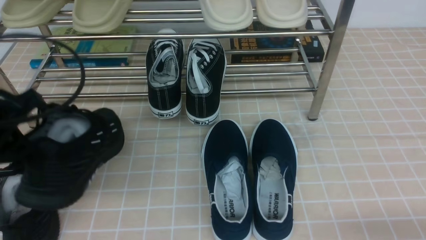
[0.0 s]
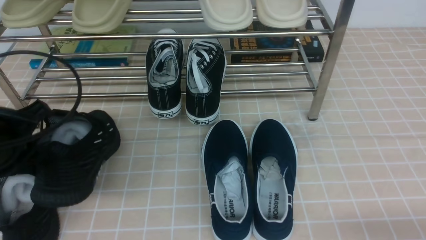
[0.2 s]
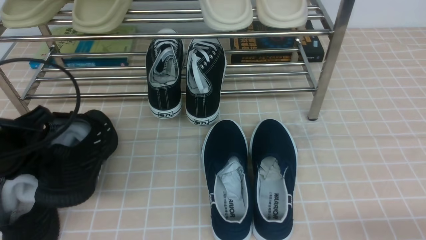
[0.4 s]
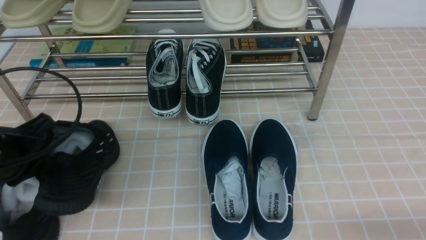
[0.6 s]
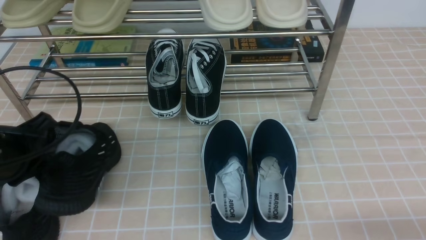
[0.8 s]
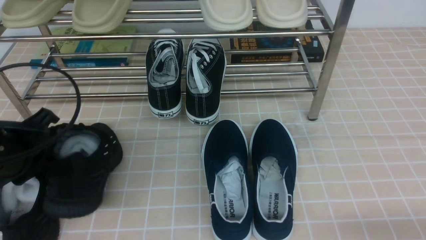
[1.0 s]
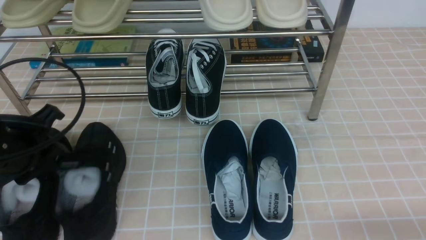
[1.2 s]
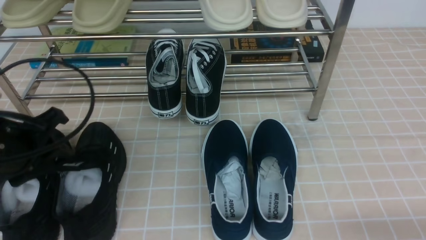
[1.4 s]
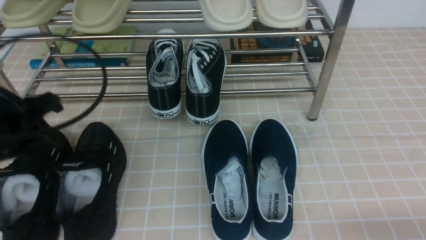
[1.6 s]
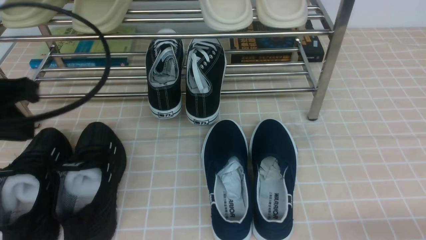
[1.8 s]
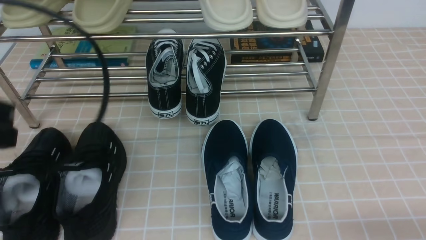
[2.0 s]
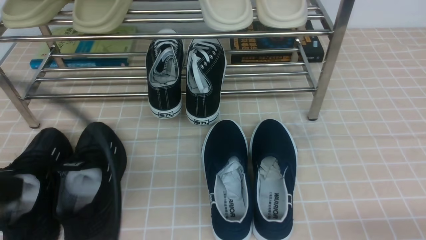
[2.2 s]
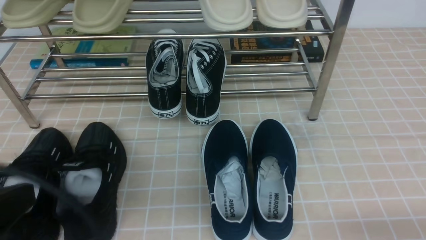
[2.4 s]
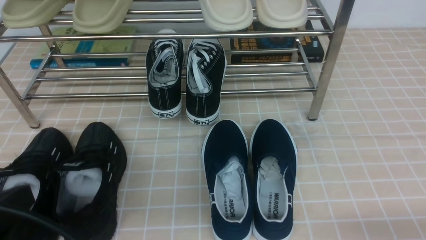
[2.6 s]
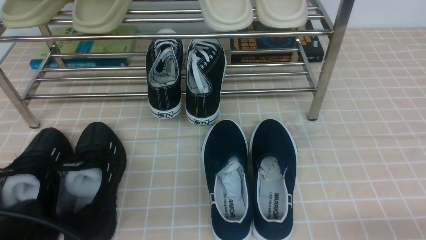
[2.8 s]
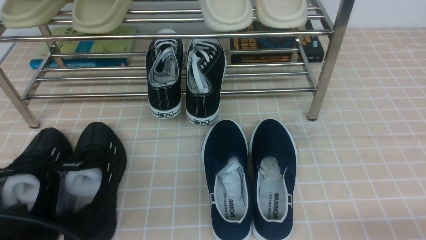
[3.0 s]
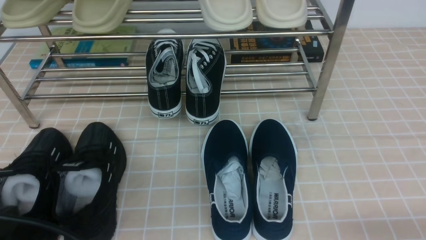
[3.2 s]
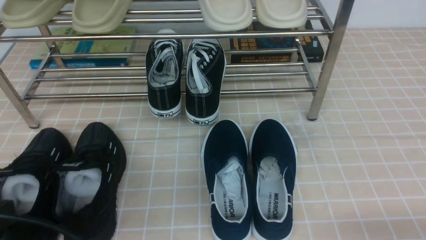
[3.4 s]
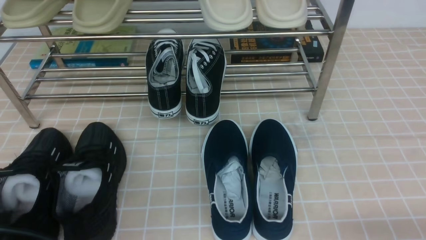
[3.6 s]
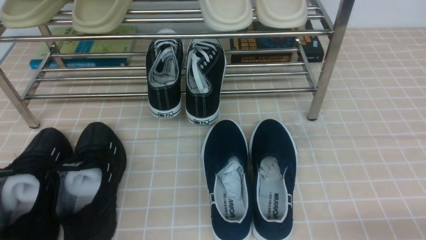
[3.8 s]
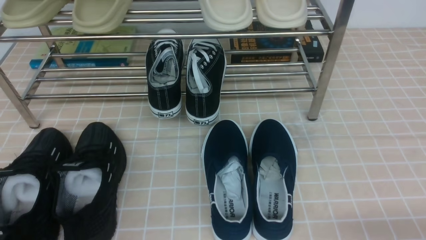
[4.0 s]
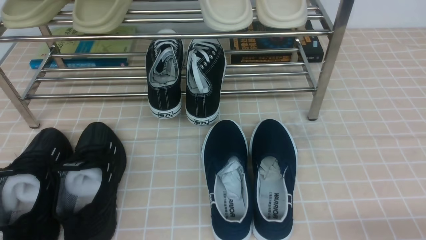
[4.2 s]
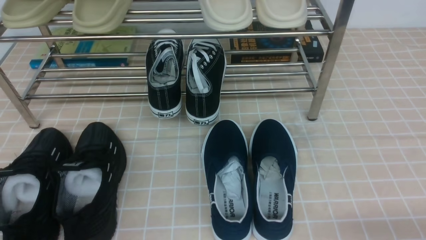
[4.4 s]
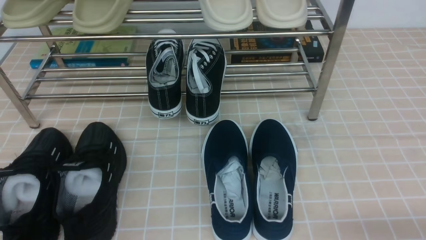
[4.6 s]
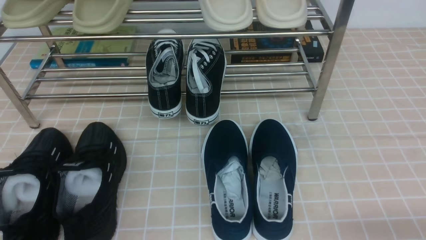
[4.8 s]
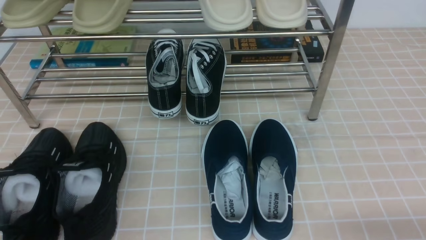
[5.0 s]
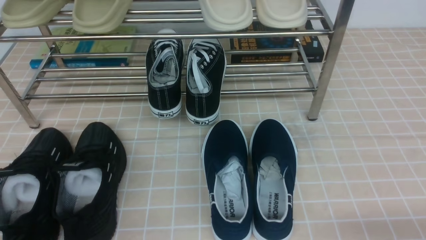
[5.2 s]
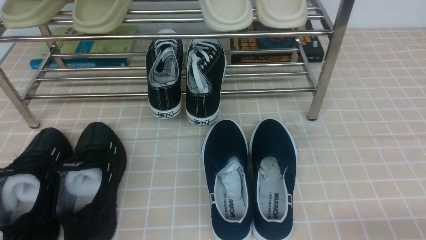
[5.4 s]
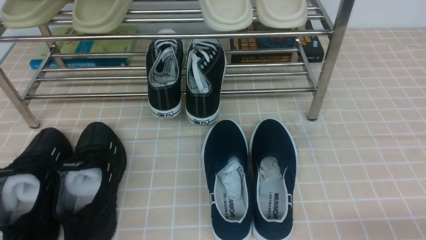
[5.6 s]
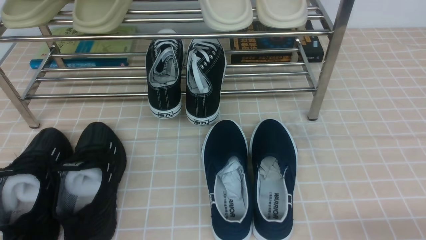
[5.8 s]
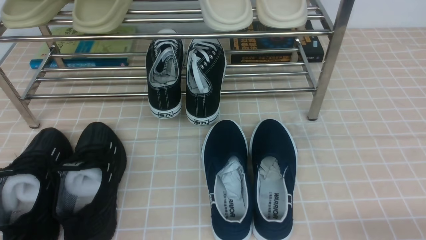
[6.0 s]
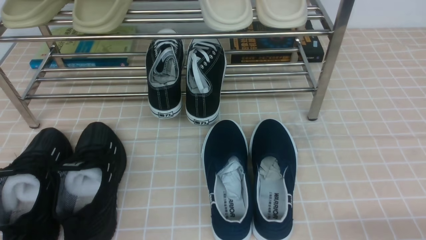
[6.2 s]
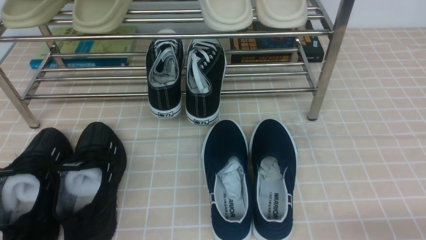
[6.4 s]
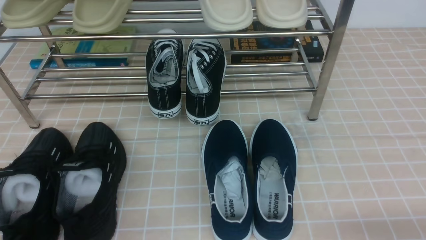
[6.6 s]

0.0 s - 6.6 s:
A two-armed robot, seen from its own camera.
Step, 0.0 s - 1.4 s: Use your left arm to remove the clamped shoe from the shoe rack and put it down.
0.0 s - 1.6 s: The left gripper opens its fingers.
1.6 s - 3.2 s: The left gripper is displaced backward by some 15 cm, and closes.
3.2 s - 5.0 s: The left gripper moves downward, approximately 10 cm.
5.0 s - 6.6 s: The two grippers keep their place.

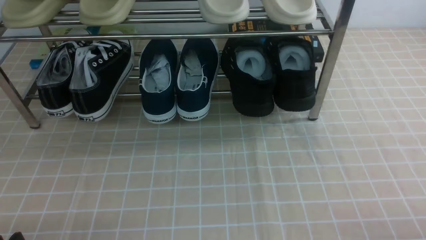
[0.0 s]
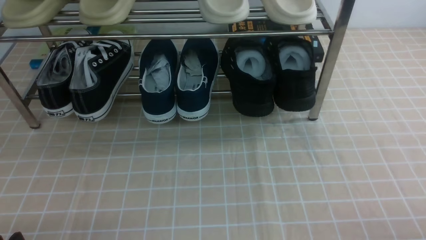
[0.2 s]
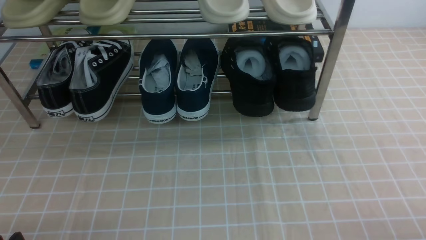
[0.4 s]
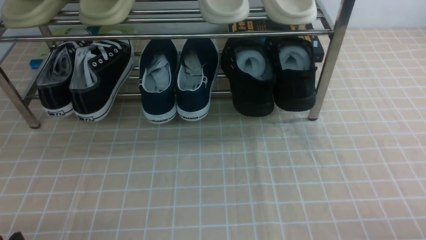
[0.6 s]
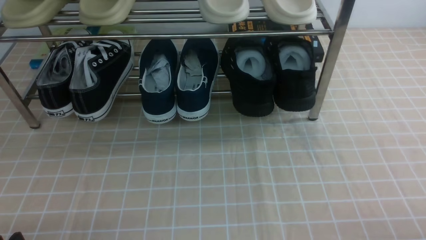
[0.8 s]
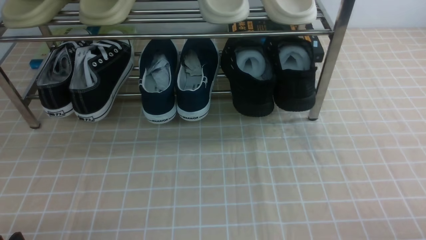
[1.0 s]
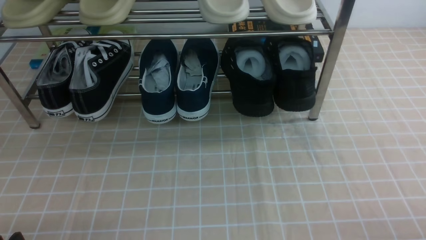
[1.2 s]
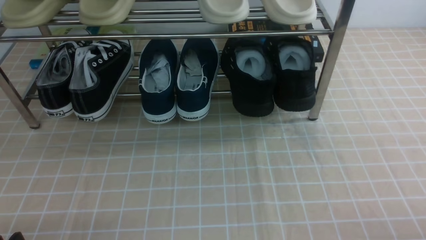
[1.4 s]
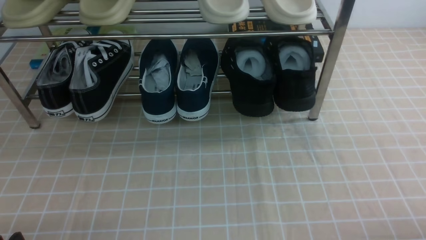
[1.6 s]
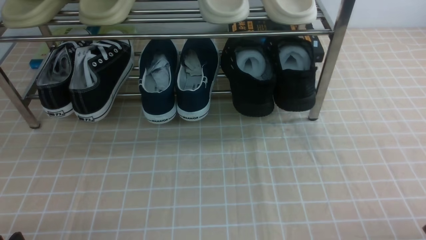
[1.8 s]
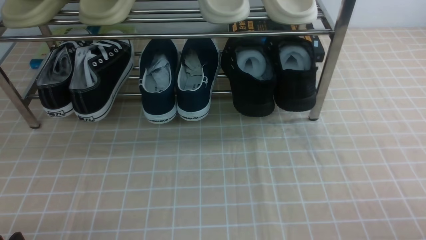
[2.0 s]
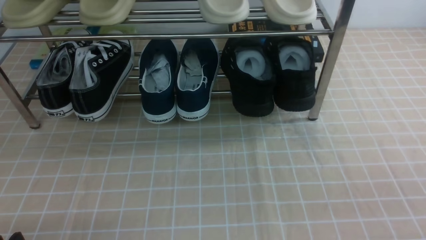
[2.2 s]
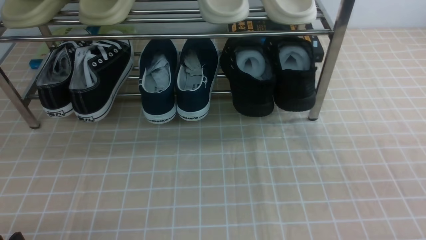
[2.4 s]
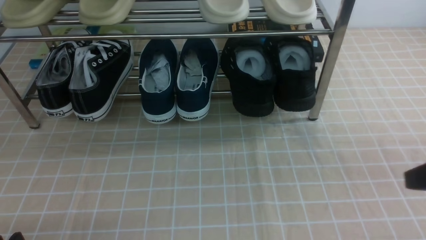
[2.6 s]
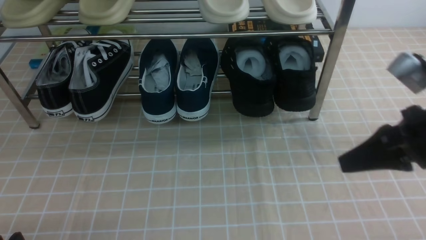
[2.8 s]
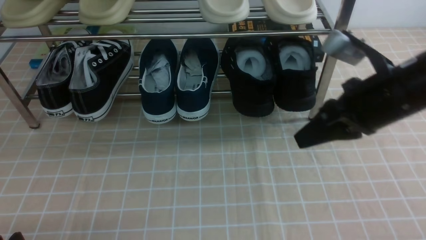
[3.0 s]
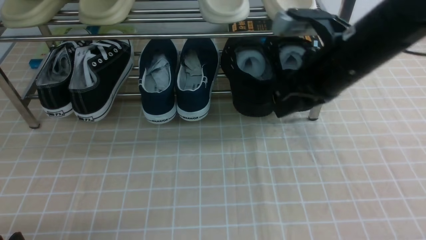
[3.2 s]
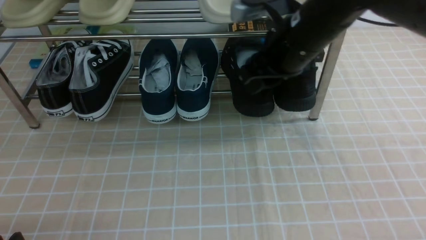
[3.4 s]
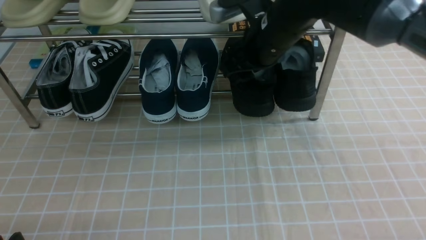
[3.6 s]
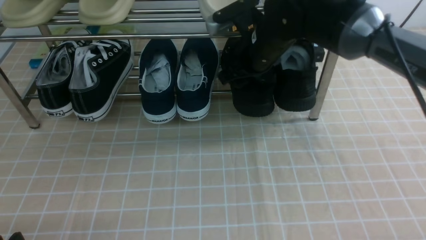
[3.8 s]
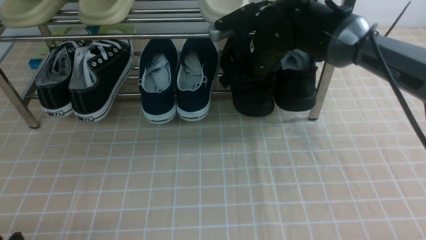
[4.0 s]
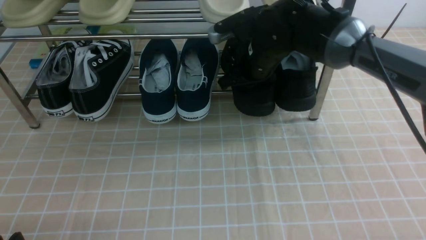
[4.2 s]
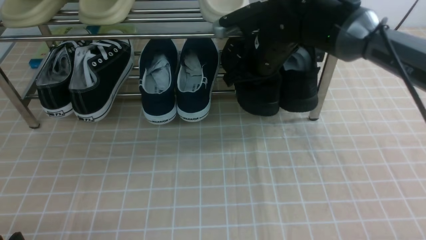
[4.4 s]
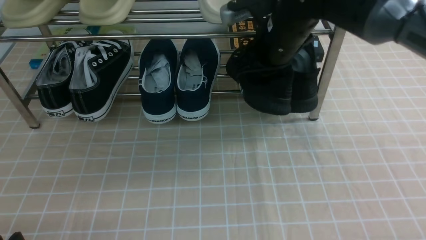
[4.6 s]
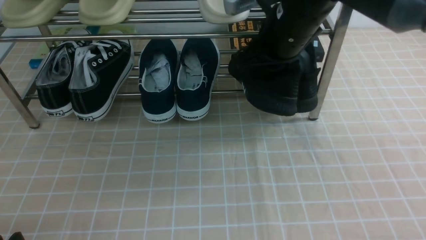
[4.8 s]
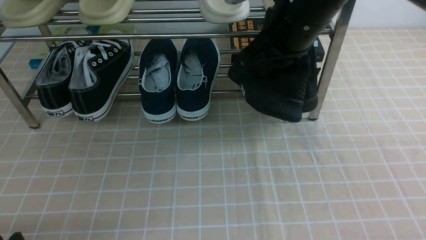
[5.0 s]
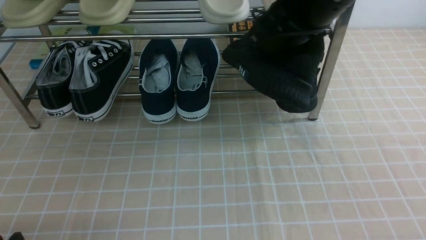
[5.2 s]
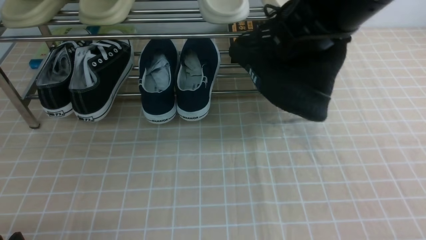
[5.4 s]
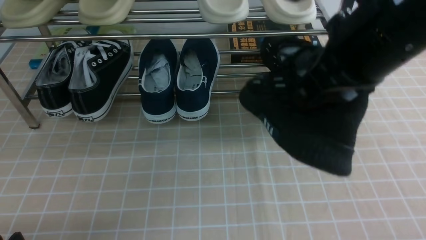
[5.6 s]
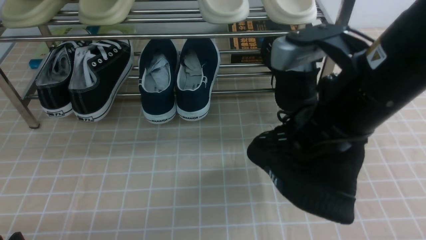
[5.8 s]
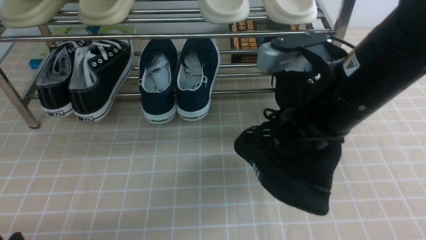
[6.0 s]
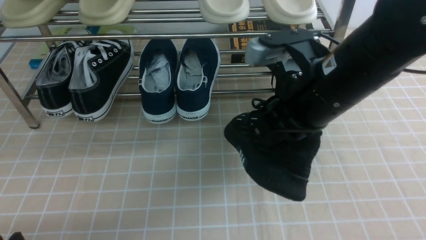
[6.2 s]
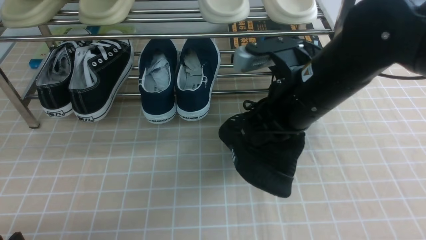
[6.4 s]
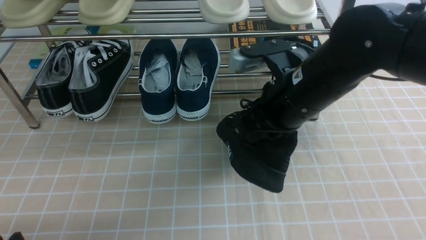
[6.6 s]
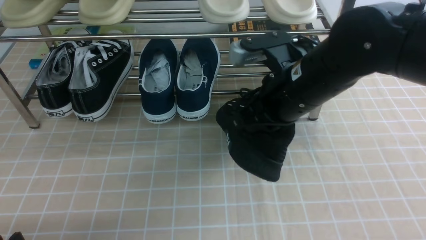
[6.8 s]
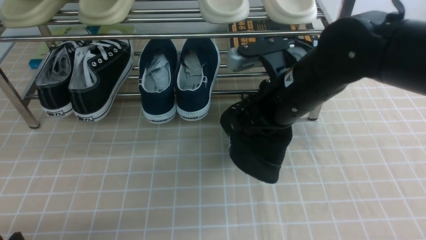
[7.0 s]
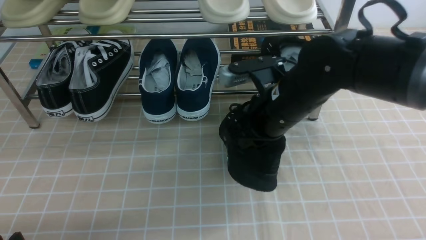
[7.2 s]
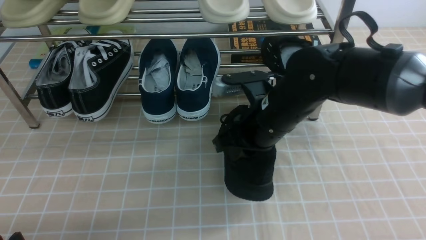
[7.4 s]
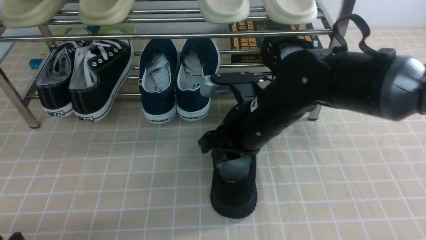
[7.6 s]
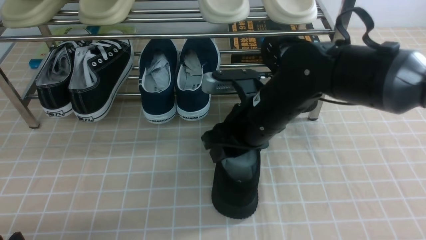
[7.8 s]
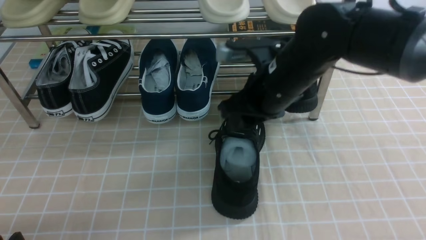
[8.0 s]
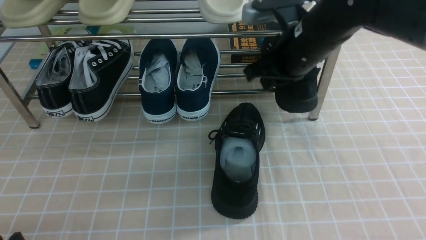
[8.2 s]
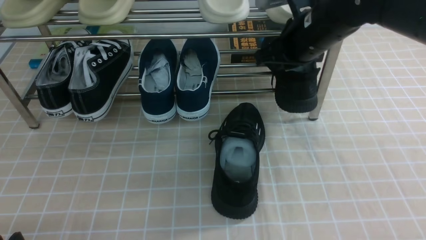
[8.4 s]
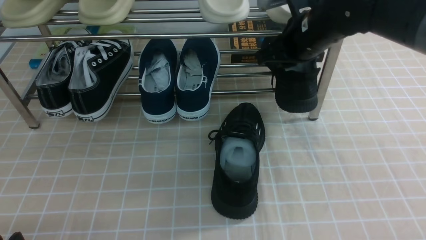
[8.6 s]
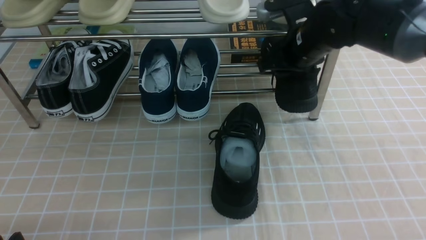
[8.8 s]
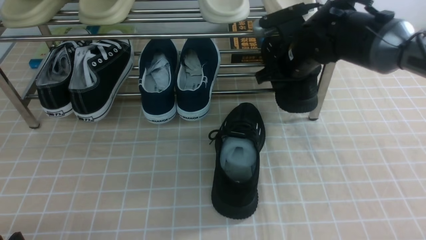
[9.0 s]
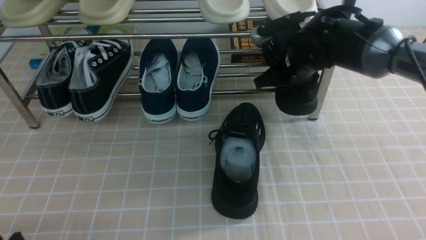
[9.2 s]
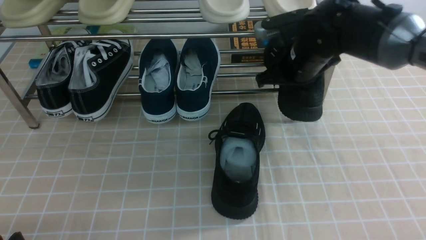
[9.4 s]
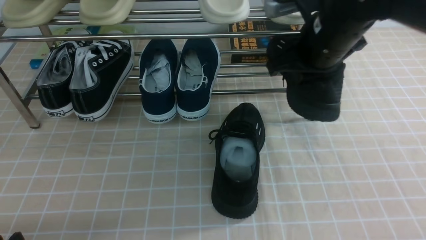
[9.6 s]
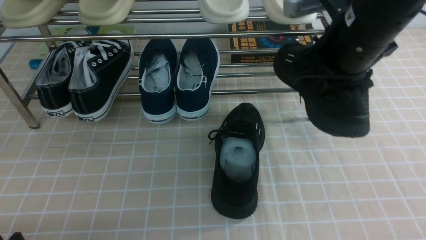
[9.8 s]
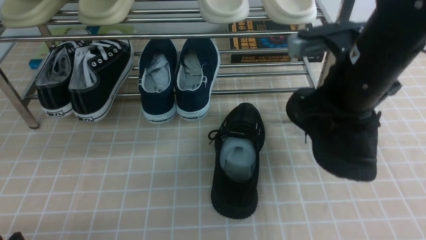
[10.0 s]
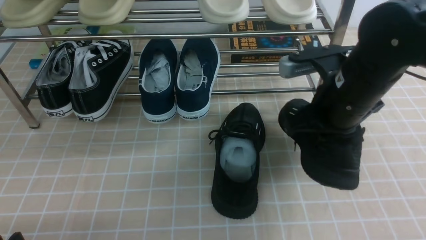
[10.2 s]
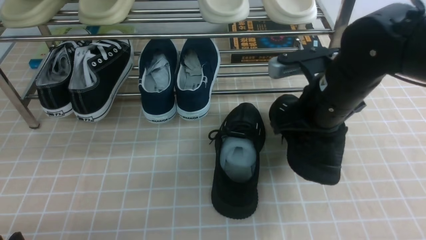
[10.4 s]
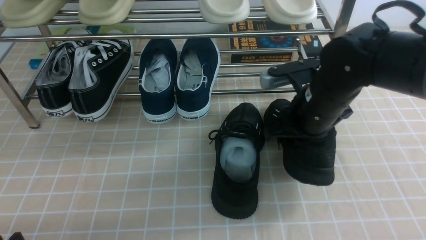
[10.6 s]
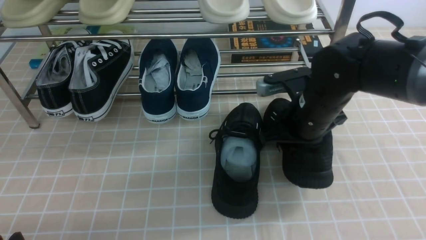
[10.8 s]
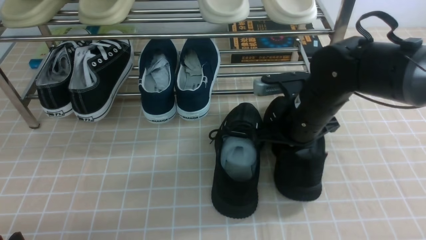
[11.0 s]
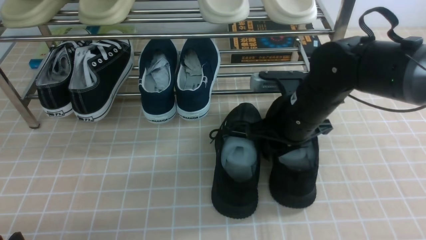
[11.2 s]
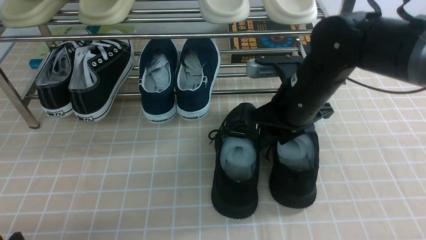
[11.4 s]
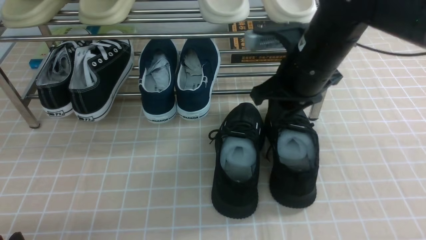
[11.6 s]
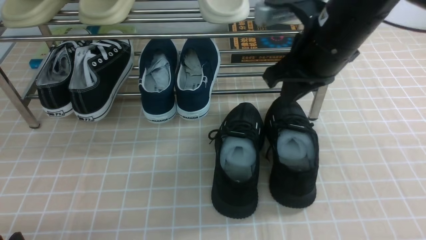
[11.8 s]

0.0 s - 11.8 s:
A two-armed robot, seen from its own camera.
Step, 0.0 s - 4.2 s: use the right arm to clamp a shoe on the right side of the shoe rack.
Step, 4.4 s - 7.6 s: use the right arm to take out the clamped shoe from the shoe rack and put it down.
Step, 8.0 s - 9.2 s: use the right arm to clamp a shoe on the right side of the shoe rack.
Step, 9.4 s - 11.4 s: use the right arm to take out the clamped shoe from the shoe rack and put it down.
1.4 s - 3.0 s: The right gripper shifts roughly 30 cm forward, upward and to the left, and closes up.
3.0 s - 4.4 s: The right gripper moves forward and to the left, some 20 cm, and opens and closes again.
4.4 s - 6.0 s: The right gripper is displaced backward by about 15 cm.
6.0 s - 7.4 s: The right gripper goes roughly 15 cm downward, forward and to the left.
7.4 s - 8.8 s: The right gripper goes some 15 cm forward and to the right, and opens its fingers.
8.8 s - 10.4 s: The right gripper moves backward, some 10 cm, and closes its fingers.
10.4 s - 11.8 s: The right gripper is displaced upward by roughly 10 cm, and opens and closes again.
